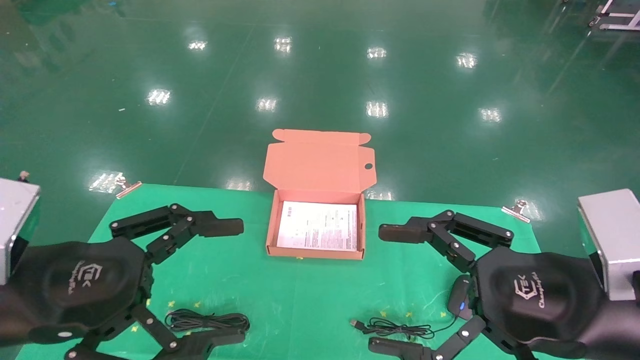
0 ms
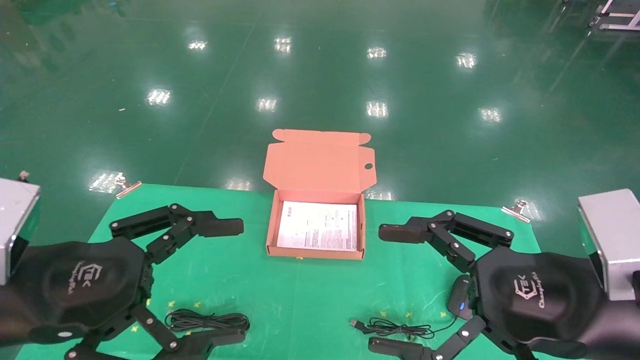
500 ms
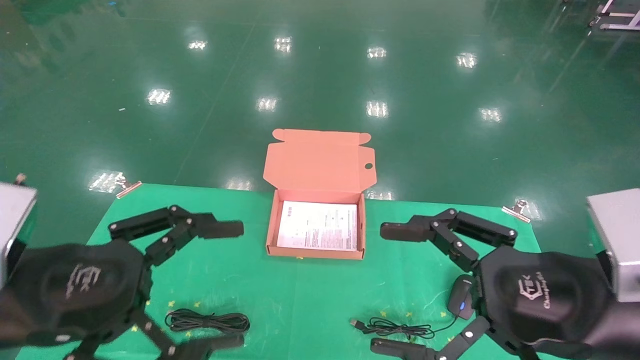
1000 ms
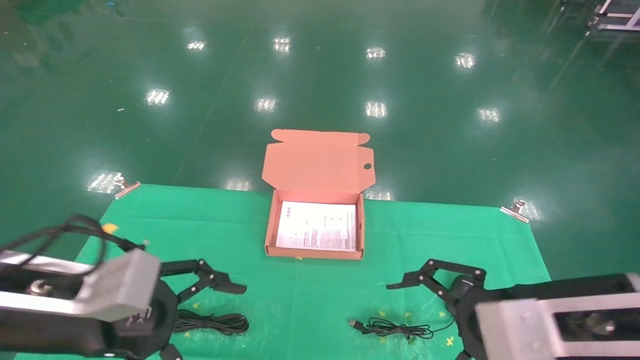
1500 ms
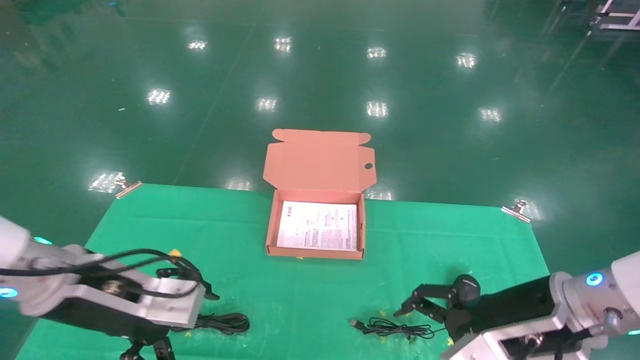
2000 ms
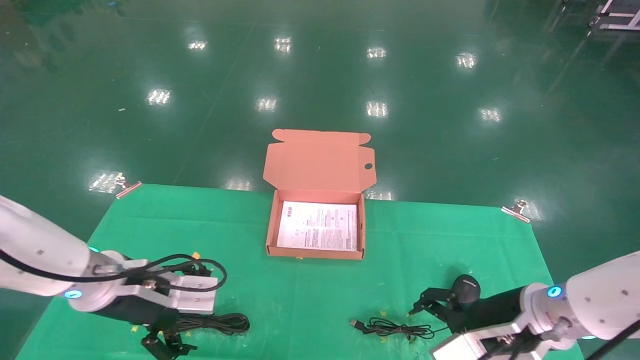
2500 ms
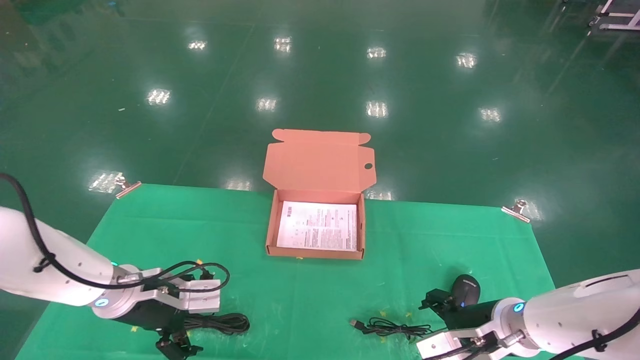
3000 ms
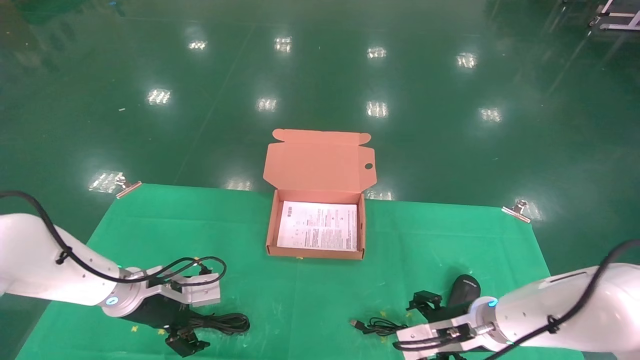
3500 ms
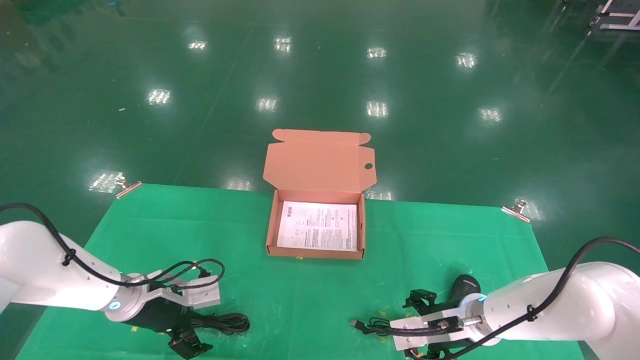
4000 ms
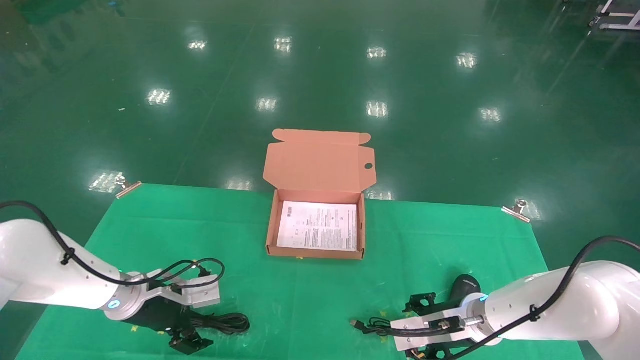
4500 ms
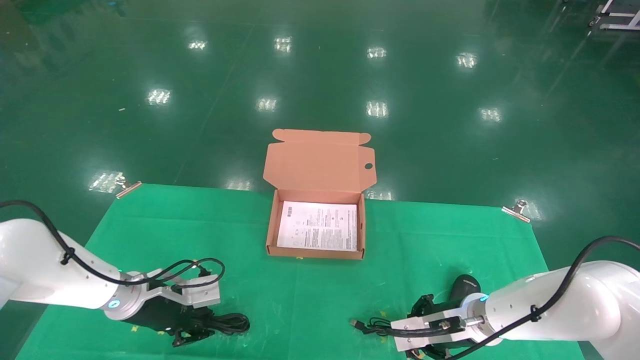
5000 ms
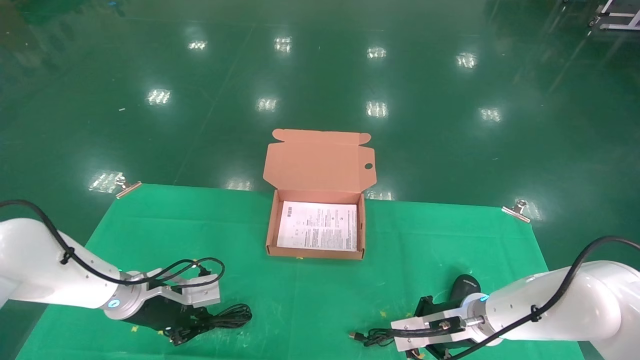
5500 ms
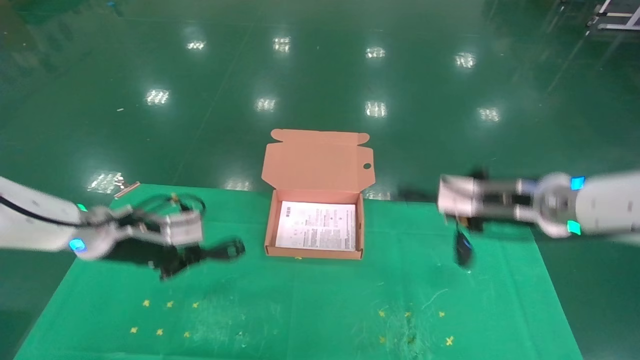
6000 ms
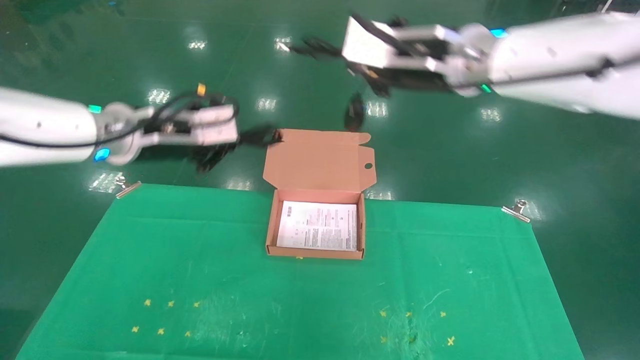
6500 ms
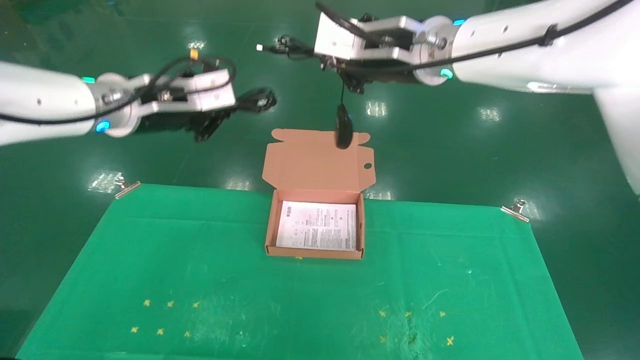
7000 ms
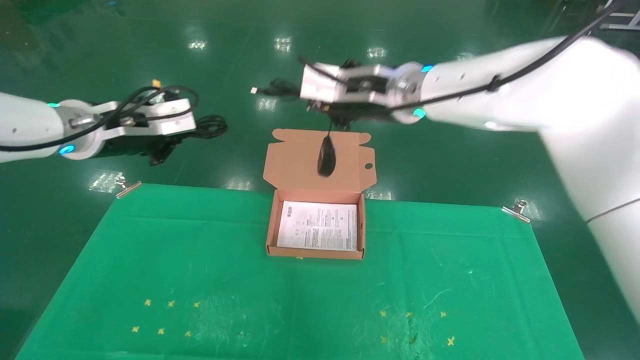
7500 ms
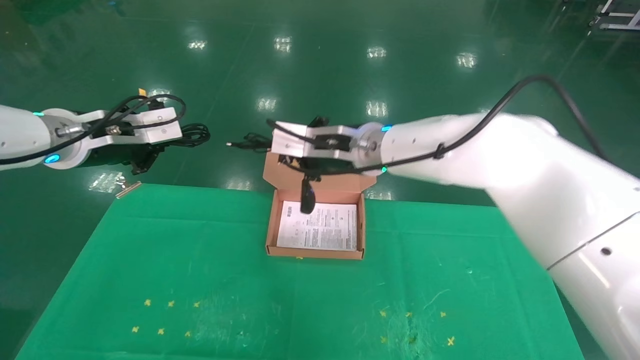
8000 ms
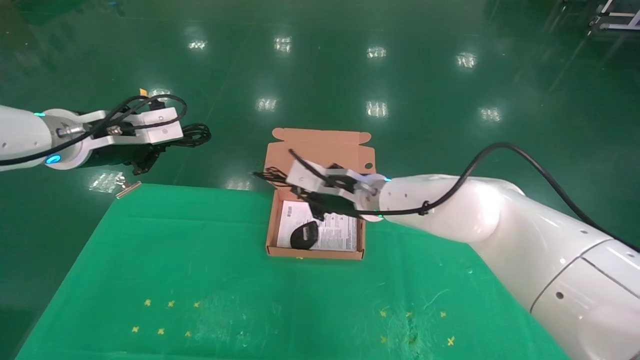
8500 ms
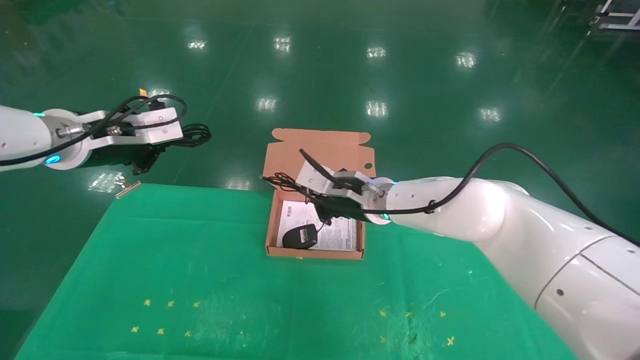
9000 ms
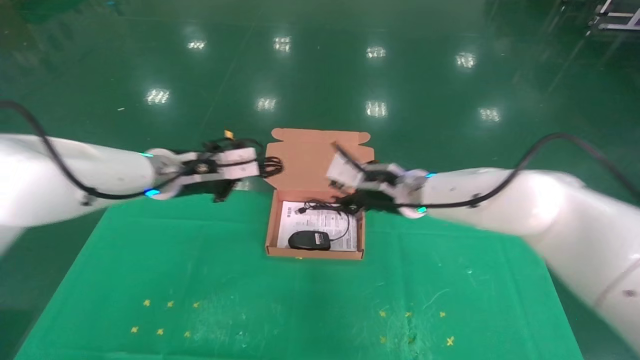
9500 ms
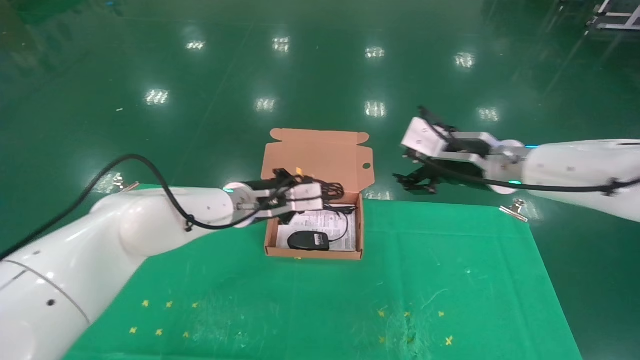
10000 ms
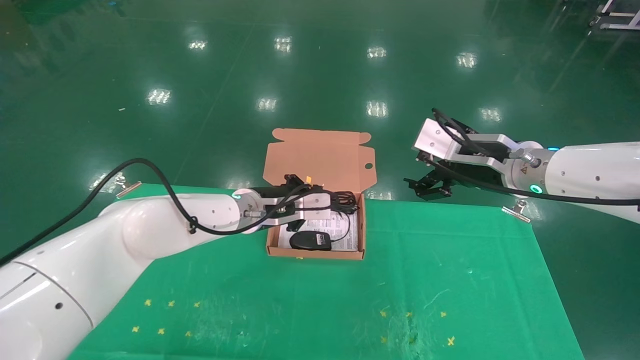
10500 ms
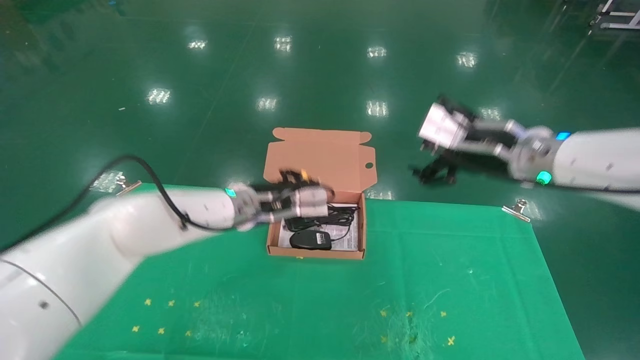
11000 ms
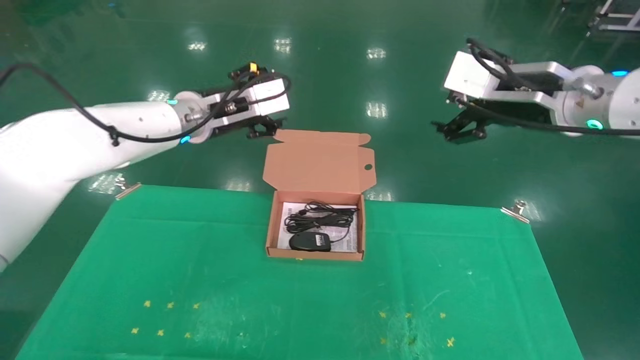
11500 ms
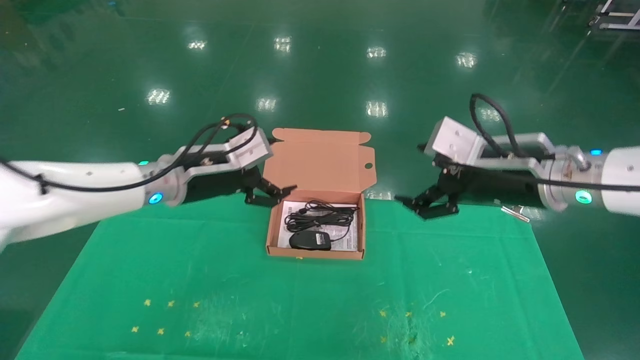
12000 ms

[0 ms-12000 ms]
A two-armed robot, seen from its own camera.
Task of the whole recording: grasp data cable left put into box grasp mouse right put into box.
Step, 1500 ms to 5500 ms: Grab and pick up both the mouse and power cord from the accessory packaging area at the same time.
Step, 6000 ms to 11000 ms: Place the mouse and power cord into the box.
0 ms to 2000 ms: The left gripper goes roughly 10 cm forward, while the right gripper heads forward and downward, covering some 10 cm.
2000 ms to 4000 ms: The right gripper moves downward and forward, approximately 15 cm; the left gripper moves forward and downward, some 20 cm.
4000 ms to 6000 ms: The left gripper shifts roughly 15 cm upward, and closes up. The right gripper travels upward by some 20 cm, and closes.
6000 ms to 8000 ms: The left gripper moves upward, roughly 15 cm. Meanwhile the right gripper travels to the left by roughly 20 cm.
8000 ms to 10000 ms: The left gripper moves to the right, downward and forward, roughly 25 cm; the right gripper heads to the right, covering roughly 20 cm, and opens.
10000 ms to 12000 ms: The left gripper goes some 10 cm to the left and backward, and opens. The right gripper shifts some 5 cm backward.
